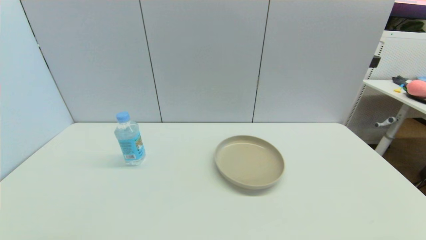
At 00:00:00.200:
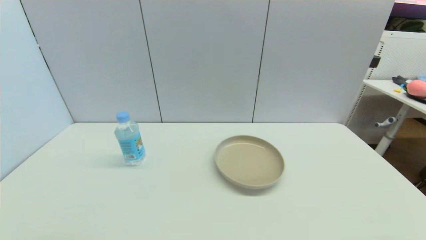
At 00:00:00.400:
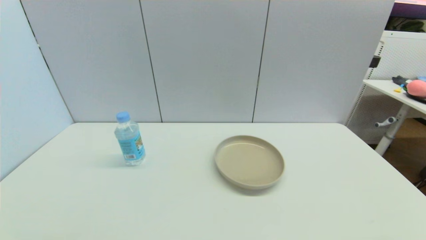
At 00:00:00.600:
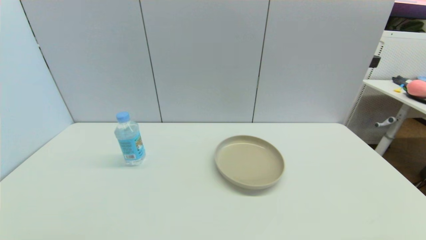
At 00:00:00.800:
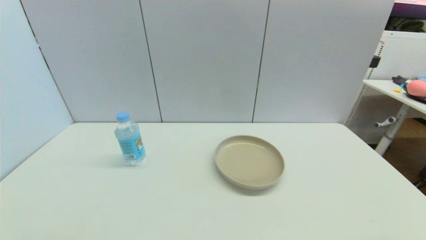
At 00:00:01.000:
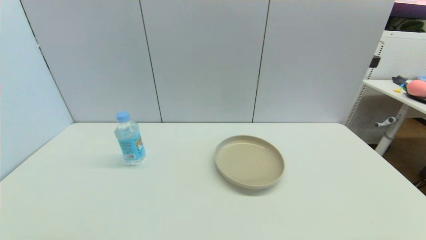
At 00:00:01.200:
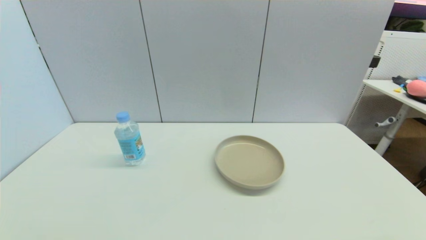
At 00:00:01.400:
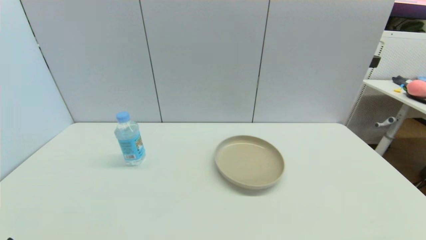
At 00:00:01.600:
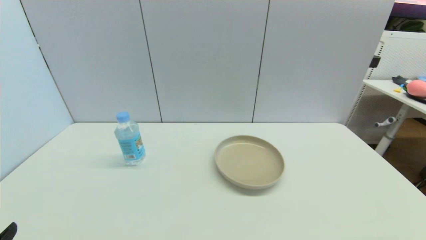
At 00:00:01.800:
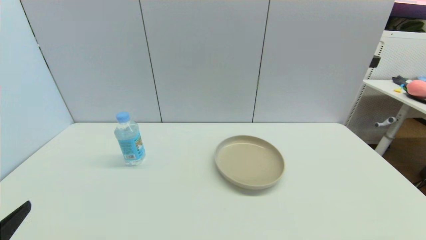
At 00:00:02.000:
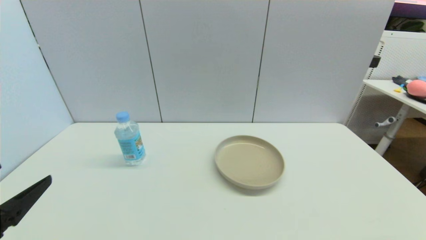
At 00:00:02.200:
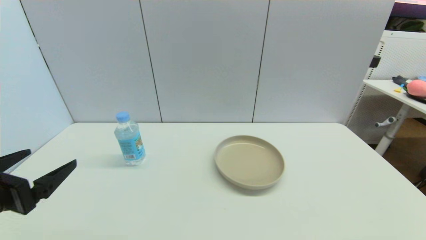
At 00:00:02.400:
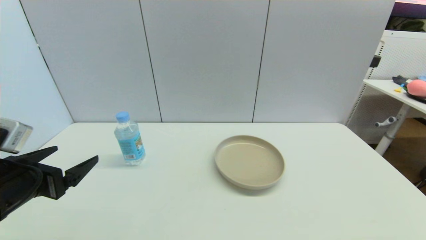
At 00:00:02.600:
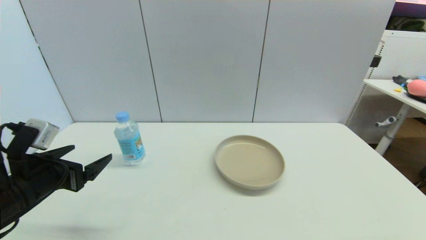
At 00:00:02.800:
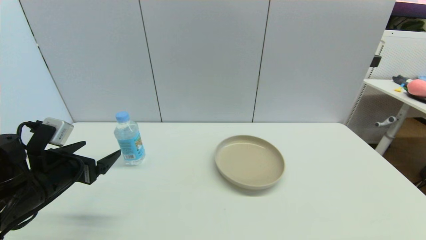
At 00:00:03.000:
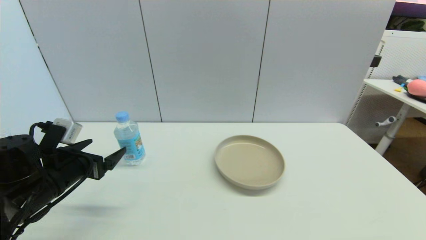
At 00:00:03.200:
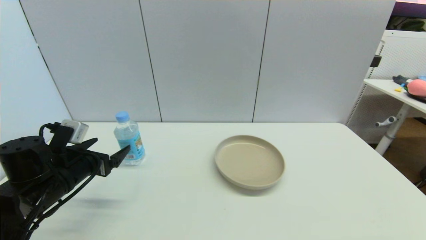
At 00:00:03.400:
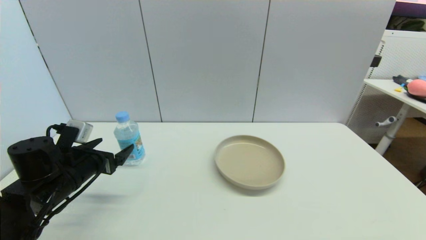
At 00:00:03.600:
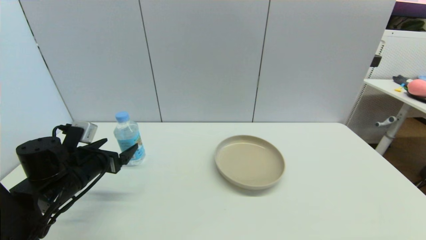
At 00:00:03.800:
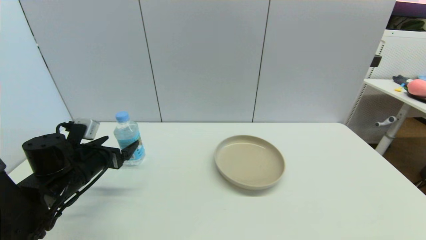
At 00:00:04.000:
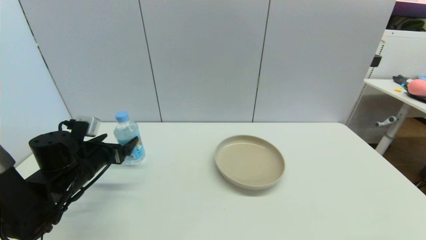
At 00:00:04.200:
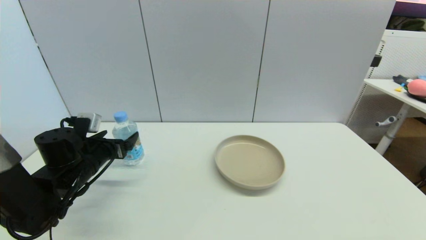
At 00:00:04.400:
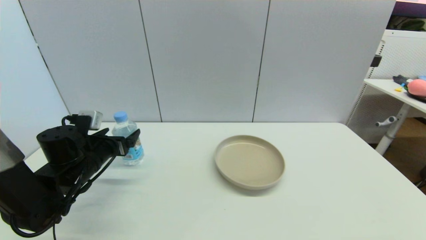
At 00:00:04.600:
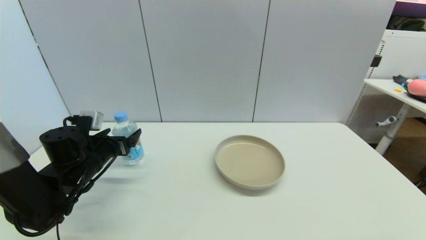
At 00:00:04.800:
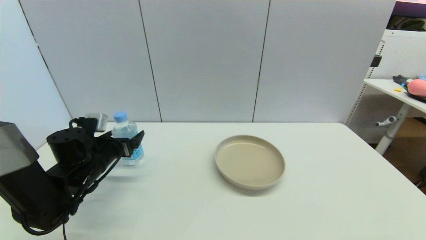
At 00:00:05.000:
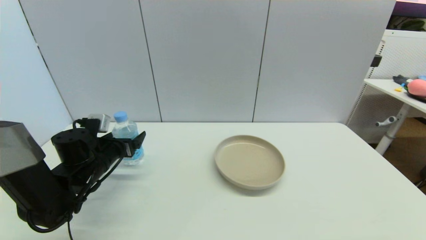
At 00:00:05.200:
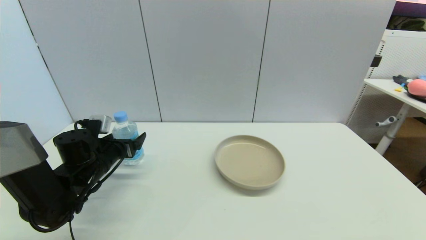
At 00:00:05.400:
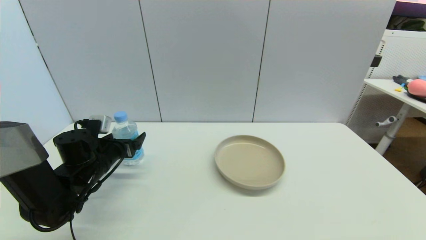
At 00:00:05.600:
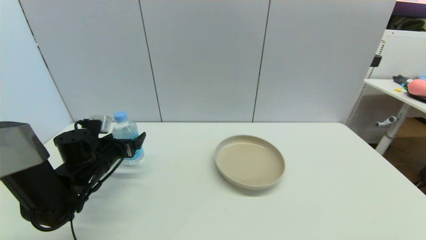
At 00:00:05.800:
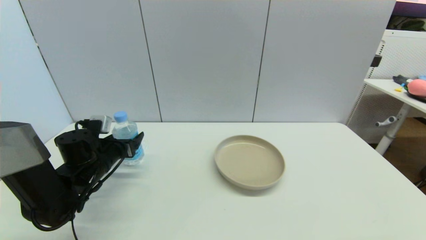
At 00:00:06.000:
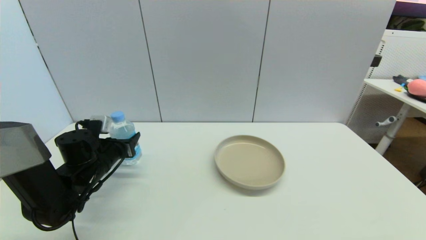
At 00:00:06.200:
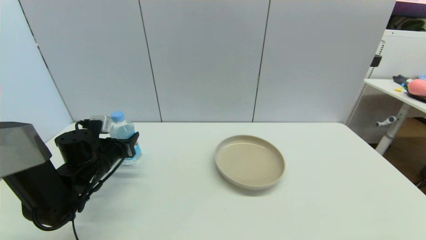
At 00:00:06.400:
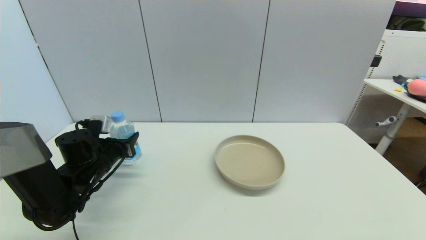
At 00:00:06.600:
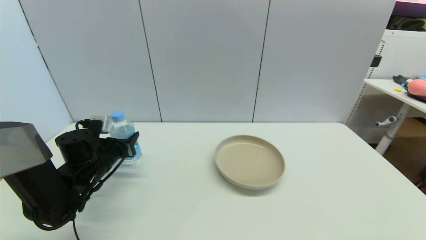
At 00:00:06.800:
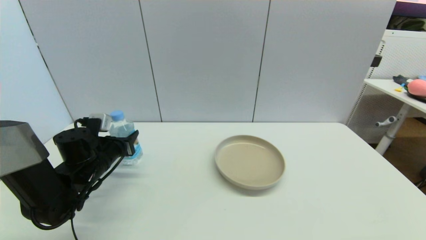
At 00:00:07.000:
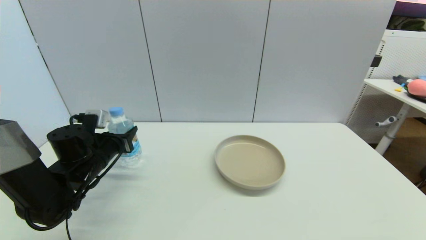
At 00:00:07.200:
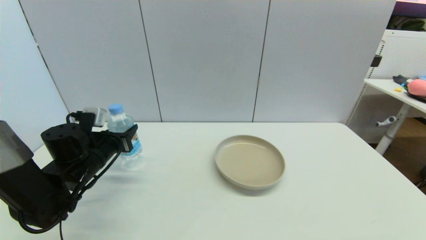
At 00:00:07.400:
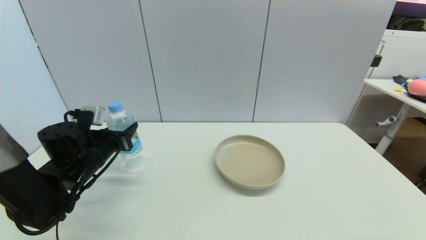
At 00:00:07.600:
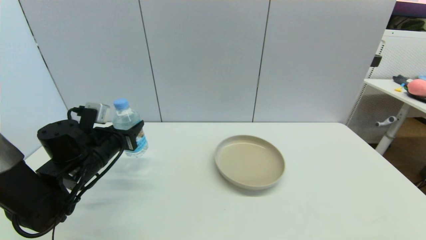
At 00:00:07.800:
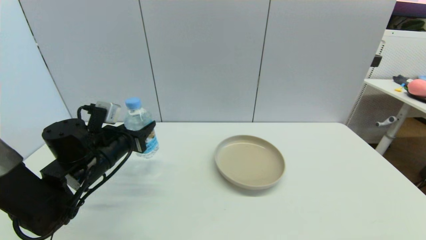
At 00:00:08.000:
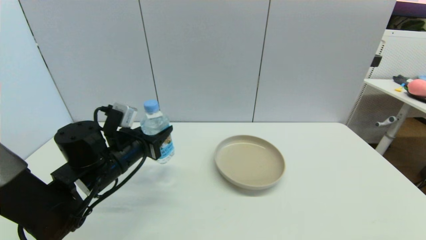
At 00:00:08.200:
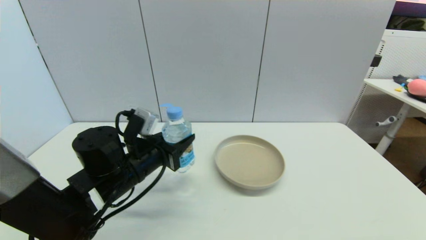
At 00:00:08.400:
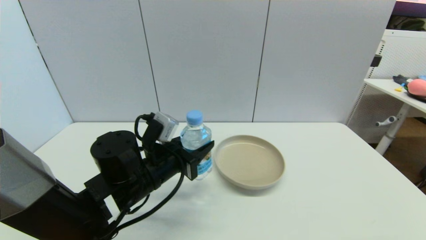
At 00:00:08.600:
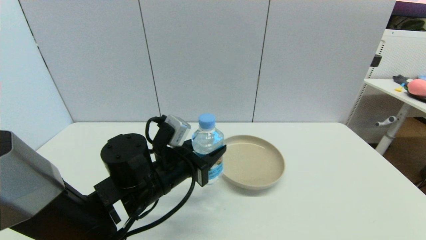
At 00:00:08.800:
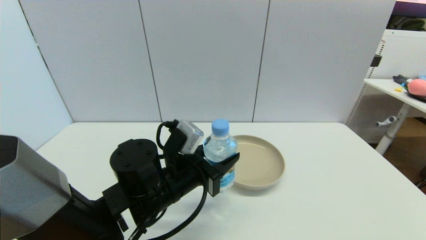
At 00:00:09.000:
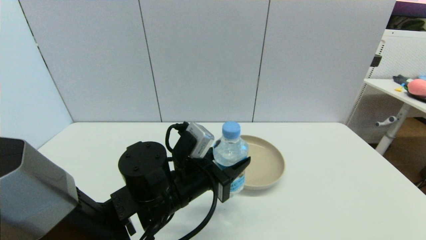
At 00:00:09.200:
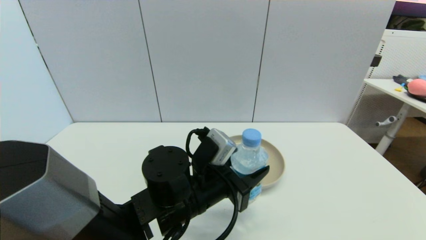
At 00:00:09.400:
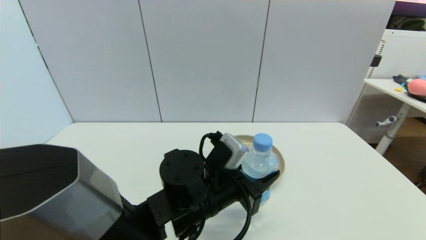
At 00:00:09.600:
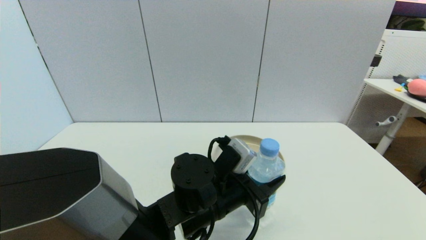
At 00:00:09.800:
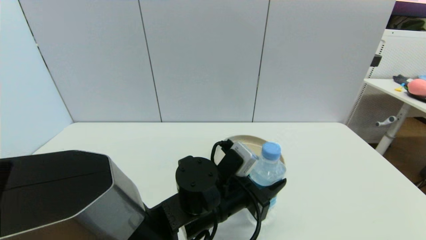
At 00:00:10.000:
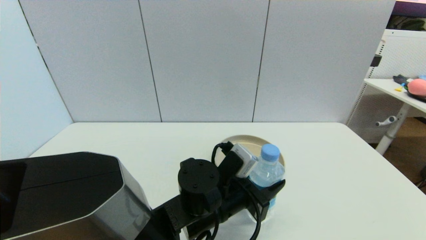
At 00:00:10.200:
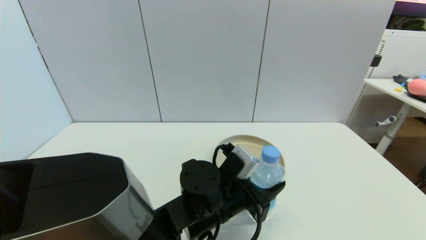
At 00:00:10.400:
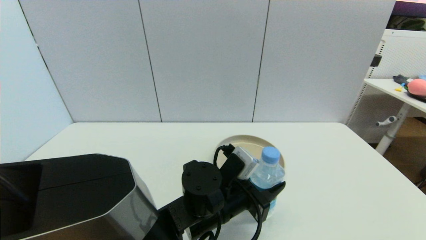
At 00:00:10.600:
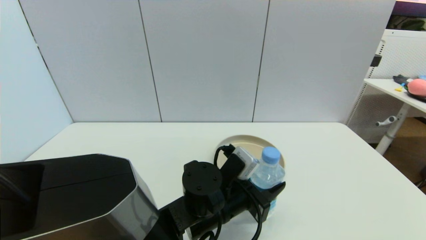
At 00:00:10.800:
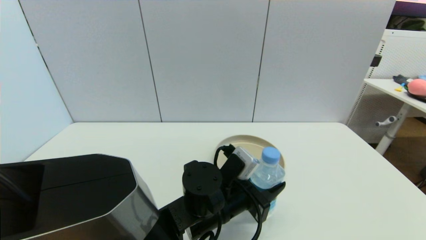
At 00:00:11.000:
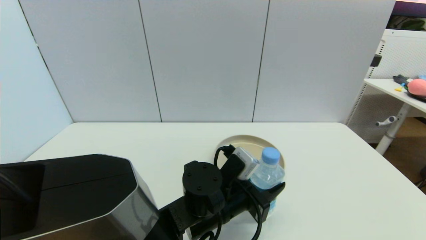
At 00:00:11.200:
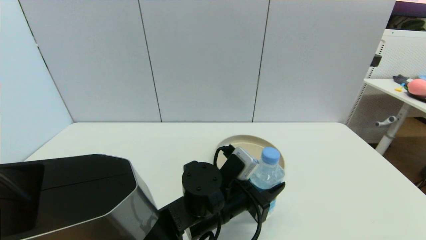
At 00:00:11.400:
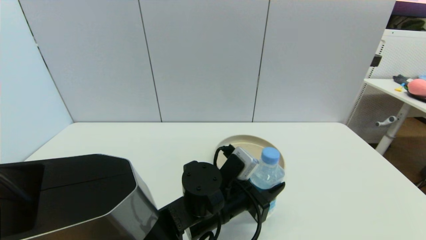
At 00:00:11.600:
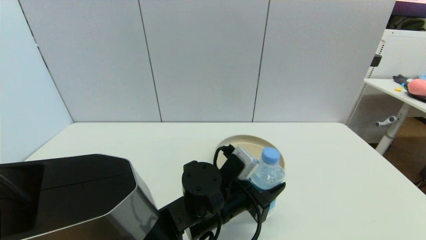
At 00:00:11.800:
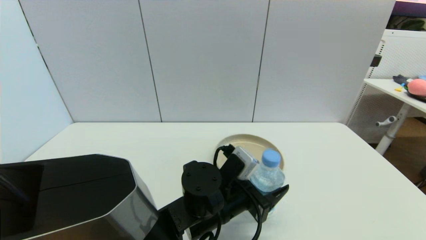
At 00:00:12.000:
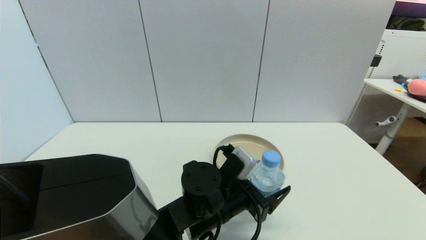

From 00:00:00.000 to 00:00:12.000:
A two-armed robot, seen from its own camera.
Step, from 00:00:01.400 to 00:00:06.400: Grasp the soda water with left gripper.
From 00:00:01.600 to 00:00:03.000: The left gripper is displaced forward by some 25 cm.
From 00:00:03.000 to 00:00:04.400: The left gripper goes about 5 cm forward.
From 00:00:04.400 to 00:00:06.000: The left gripper closes its fingers.
From 00:00:06.000 to 00:00:07.600: The left gripper changes place by approximately 5 cm.
From 00:00:07.600 to 00:00:09.000: The left gripper goes approximately 20 cm to the right and backward.
From 00:00:09.000 to 00:00:10.400: The left gripper travels to the right by approximately 5 cm.
From 00:00:10.400 to 00:00:12.000: The left gripper opens up.

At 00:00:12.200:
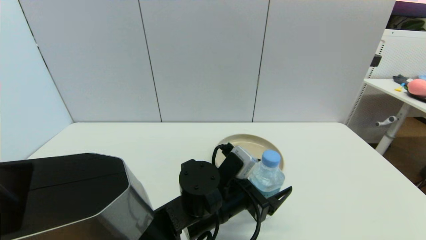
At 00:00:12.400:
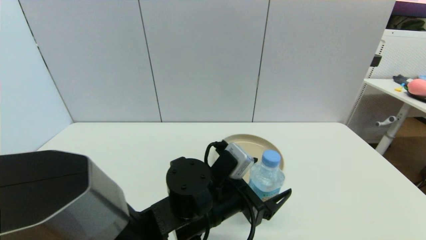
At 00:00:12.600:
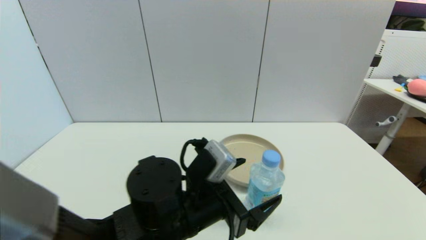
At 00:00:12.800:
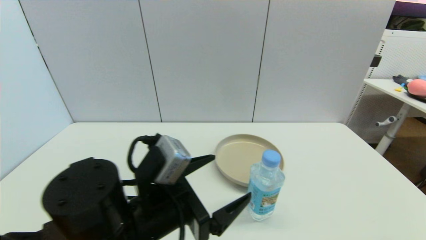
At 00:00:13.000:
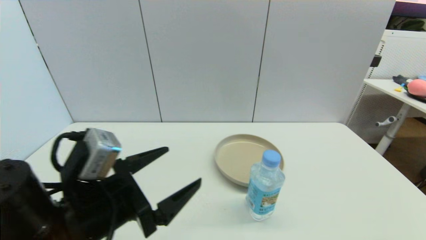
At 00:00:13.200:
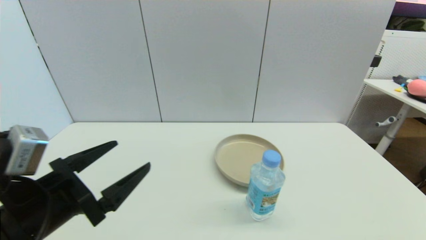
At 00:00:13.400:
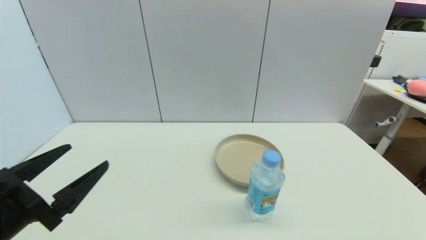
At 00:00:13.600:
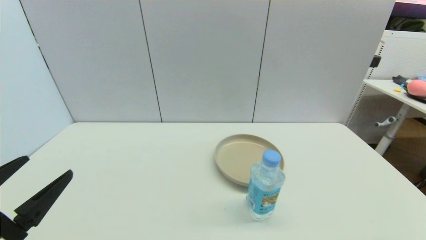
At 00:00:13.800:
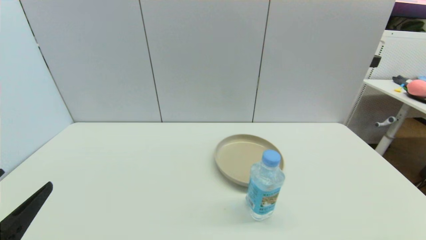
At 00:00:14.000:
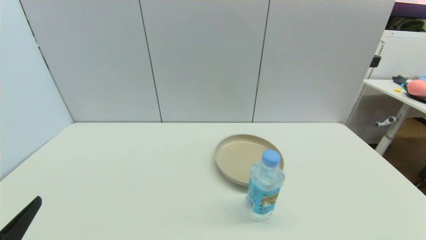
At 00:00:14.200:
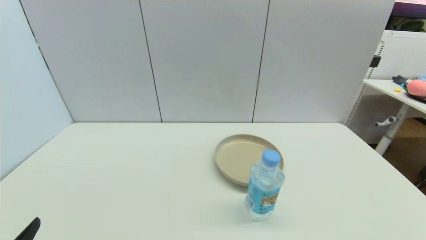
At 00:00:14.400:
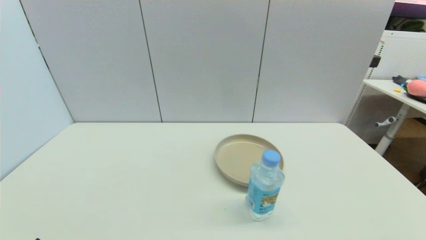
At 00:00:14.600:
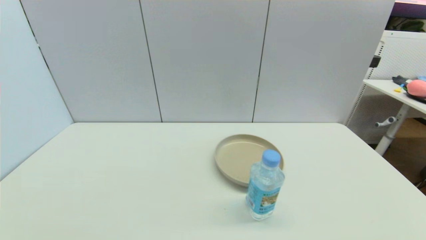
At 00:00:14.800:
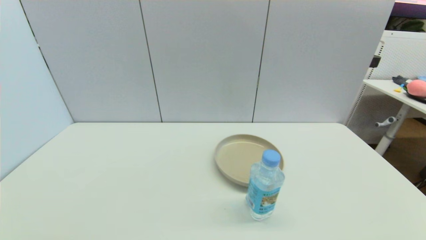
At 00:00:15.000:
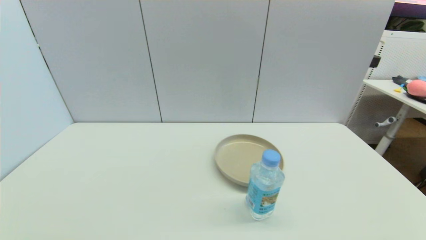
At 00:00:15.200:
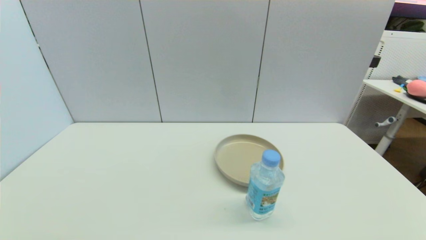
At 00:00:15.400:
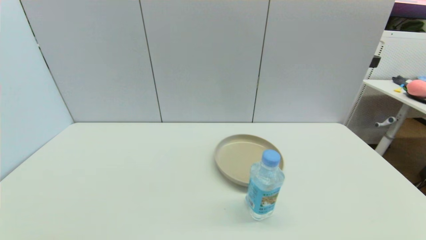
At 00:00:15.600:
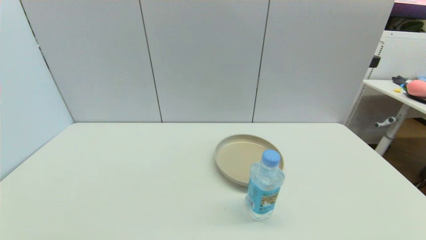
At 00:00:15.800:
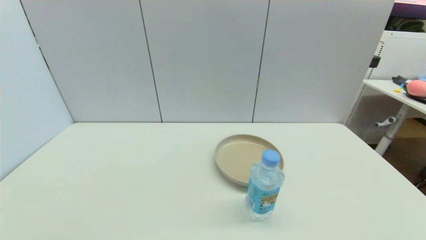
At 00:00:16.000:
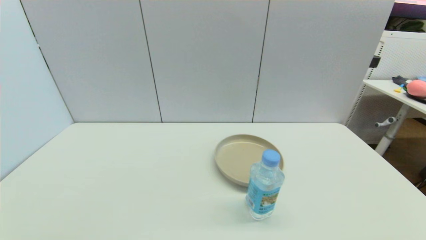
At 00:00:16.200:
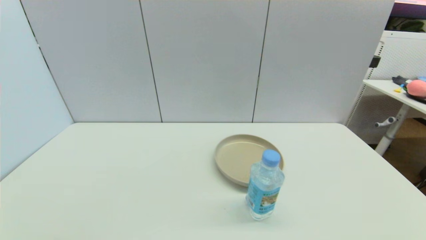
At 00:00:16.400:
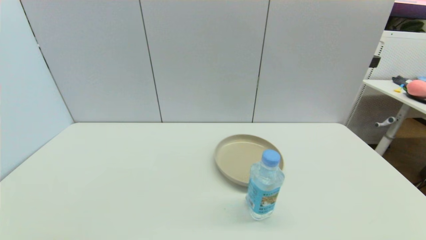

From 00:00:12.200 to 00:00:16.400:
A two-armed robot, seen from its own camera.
From 00:00:12.200 to 00:00:13.600: The left gripper moves to the left and backward, some 30 cm.
From 00:00:13.600 to 00:00:15.000: The left gripper travels downward and backward by approximately 15 cm.
From 00:00:15.000 to 00:00:16.400: Both grippers stay about where they are.
